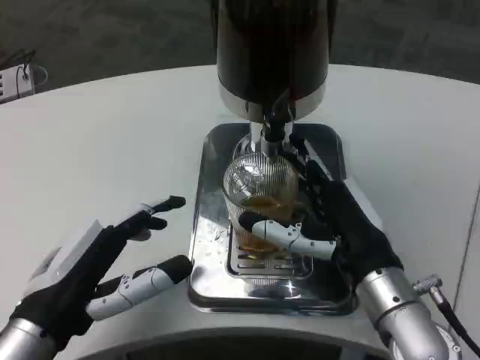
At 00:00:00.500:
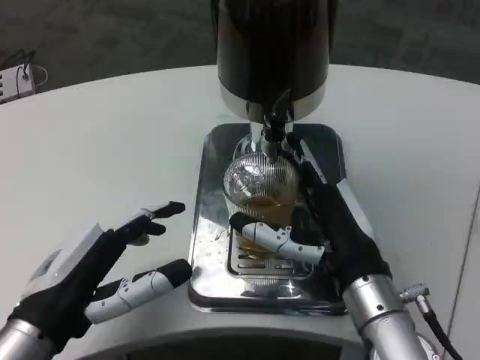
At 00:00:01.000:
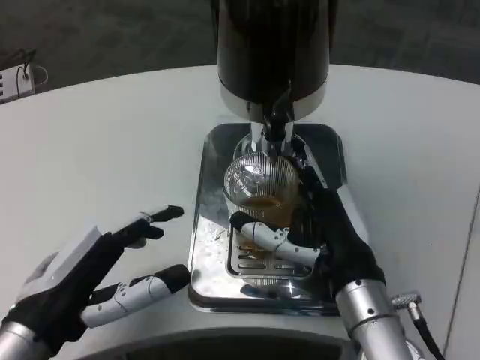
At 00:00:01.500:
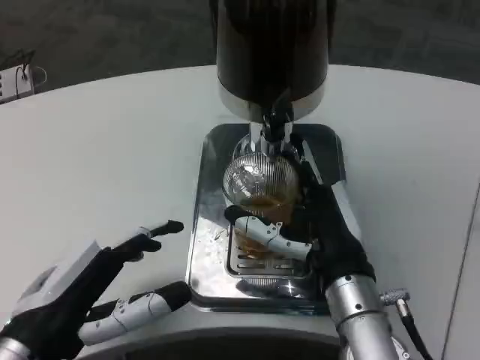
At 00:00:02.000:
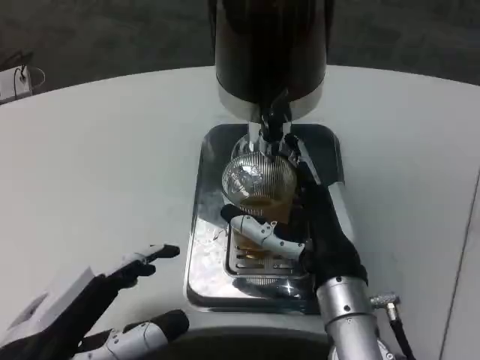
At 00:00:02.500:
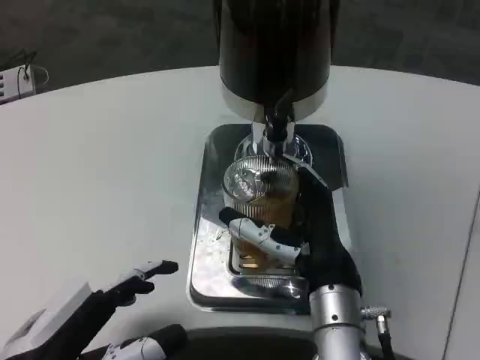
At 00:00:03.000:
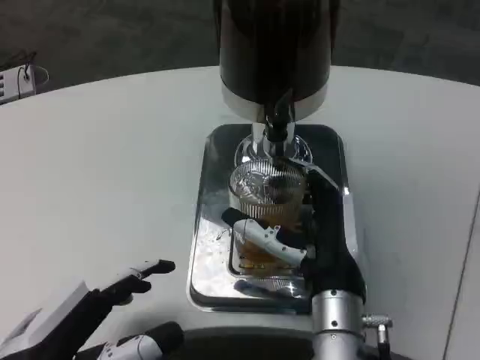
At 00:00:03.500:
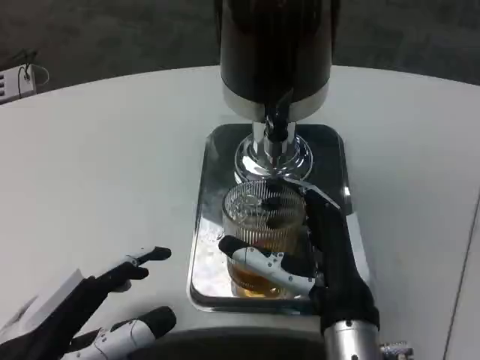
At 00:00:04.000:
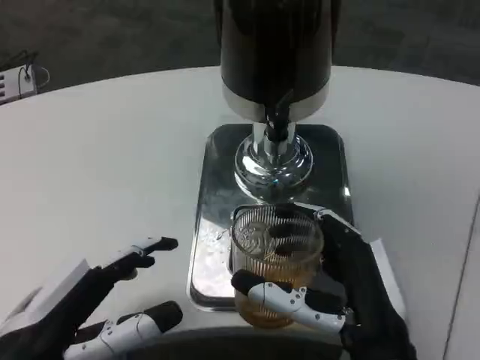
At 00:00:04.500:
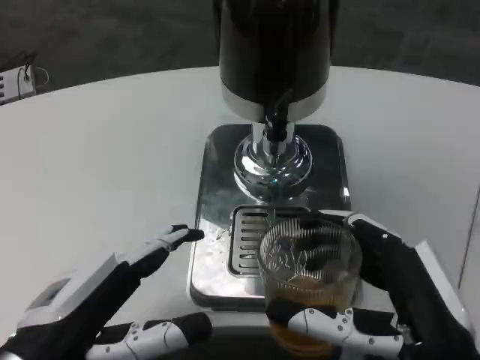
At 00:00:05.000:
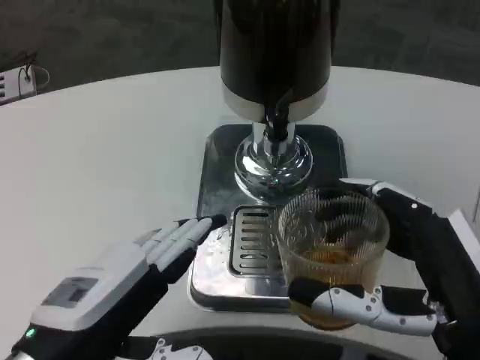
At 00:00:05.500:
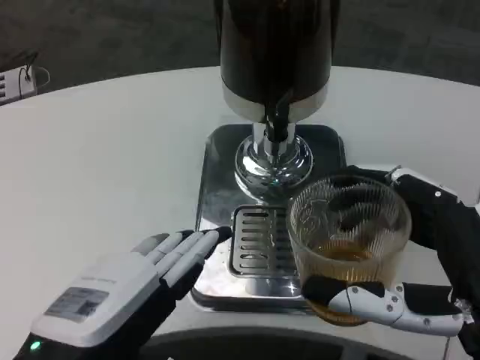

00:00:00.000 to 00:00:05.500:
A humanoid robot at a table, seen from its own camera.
Task of the whole recording: Grasp the cup under the faucet to collect the drink, then remove the cup.
00:00:00.000 to 00:00:02.000: The left hand heads backward, covering some 5 cm; the right hand moves approximately 5 cm.
00:00:02.000 to 00:00:03.500: The hands stay close to where they were, moving slightly.
00:00:03.500 to 00:00:05.500: The left hand moves approximately 5 cm, while the right hand goes some 15 cm to the right, backward and upward.

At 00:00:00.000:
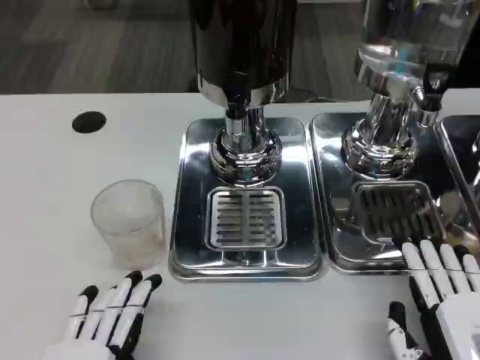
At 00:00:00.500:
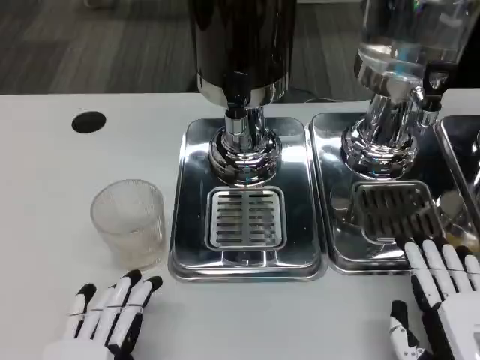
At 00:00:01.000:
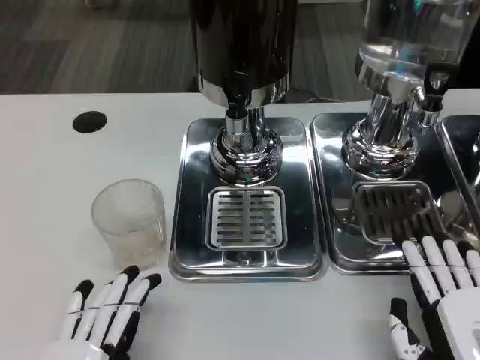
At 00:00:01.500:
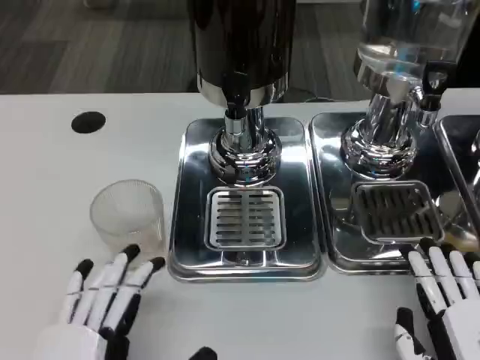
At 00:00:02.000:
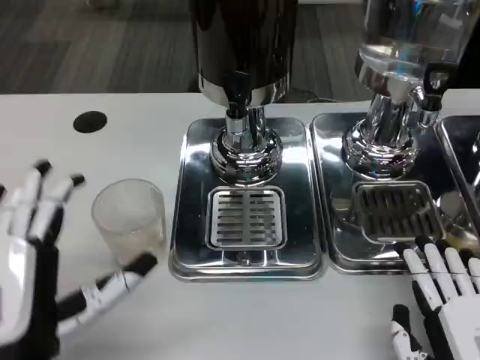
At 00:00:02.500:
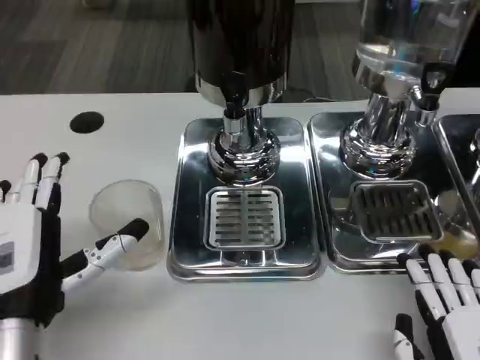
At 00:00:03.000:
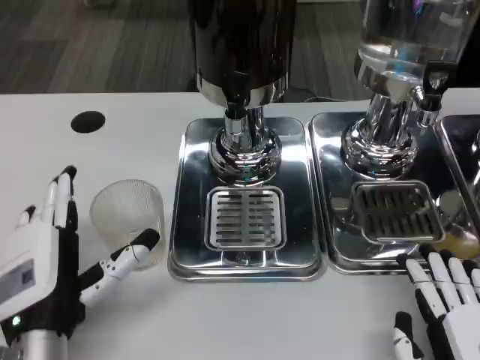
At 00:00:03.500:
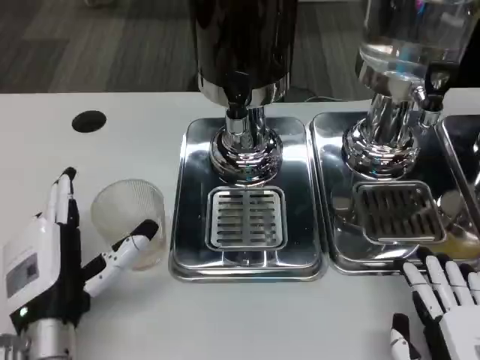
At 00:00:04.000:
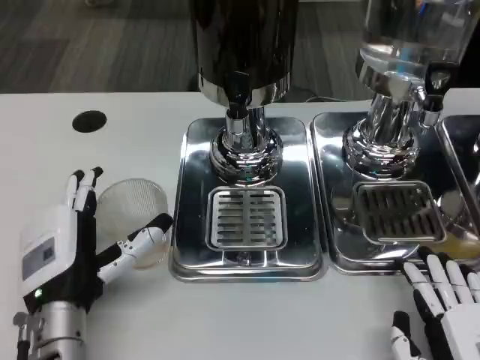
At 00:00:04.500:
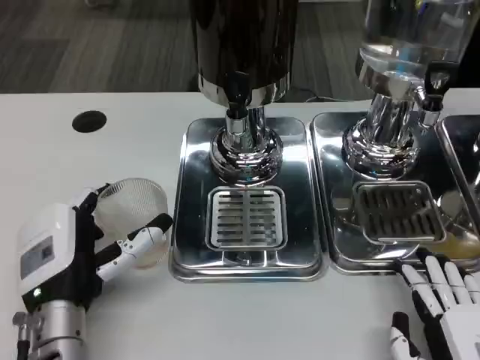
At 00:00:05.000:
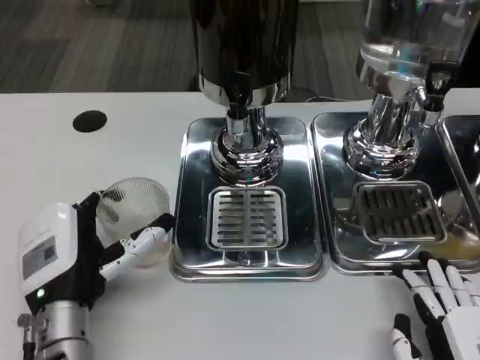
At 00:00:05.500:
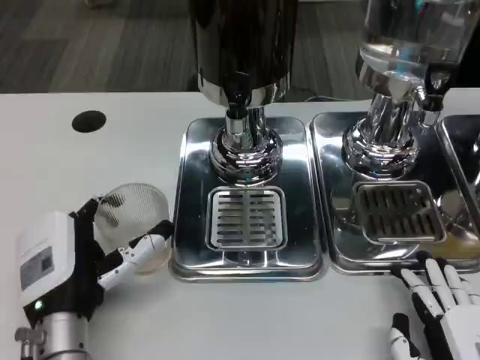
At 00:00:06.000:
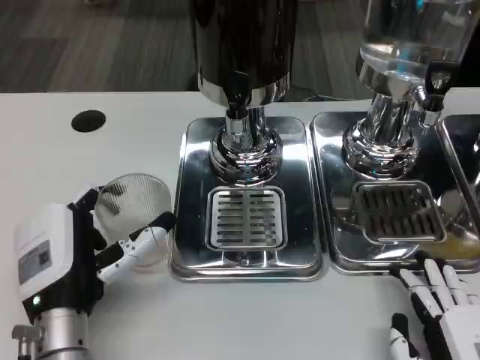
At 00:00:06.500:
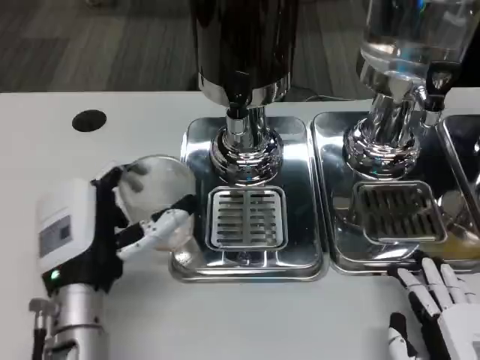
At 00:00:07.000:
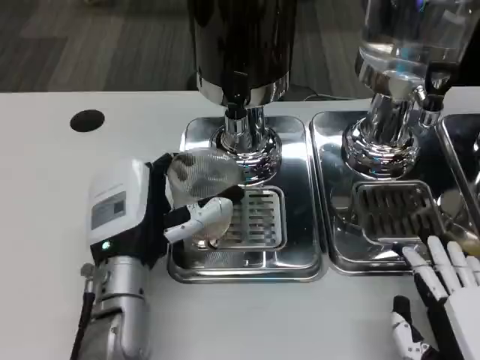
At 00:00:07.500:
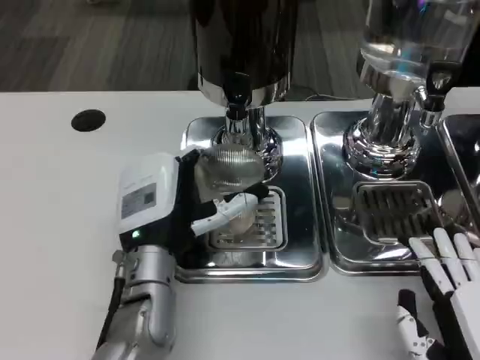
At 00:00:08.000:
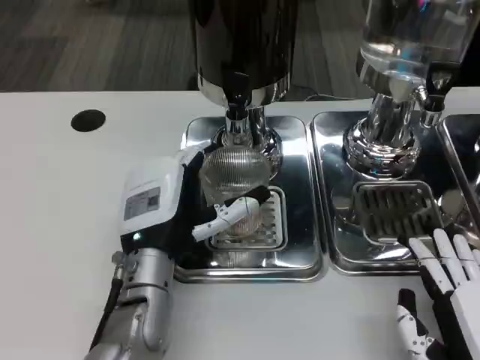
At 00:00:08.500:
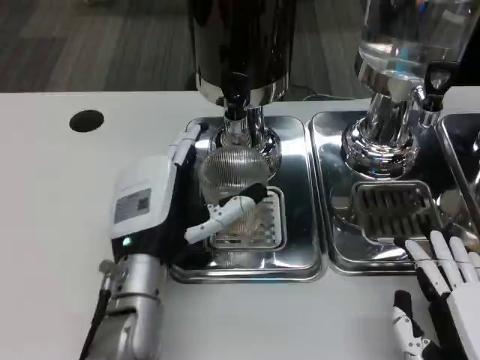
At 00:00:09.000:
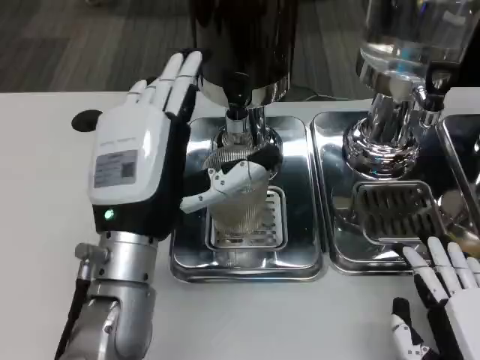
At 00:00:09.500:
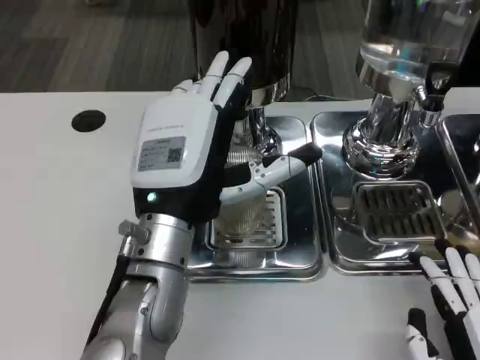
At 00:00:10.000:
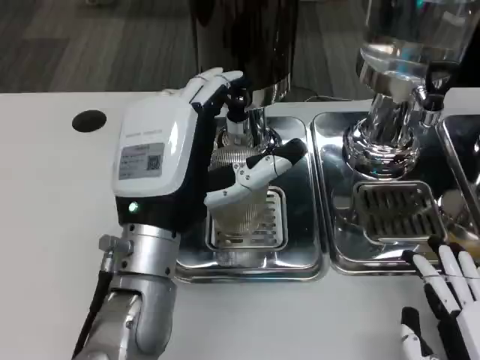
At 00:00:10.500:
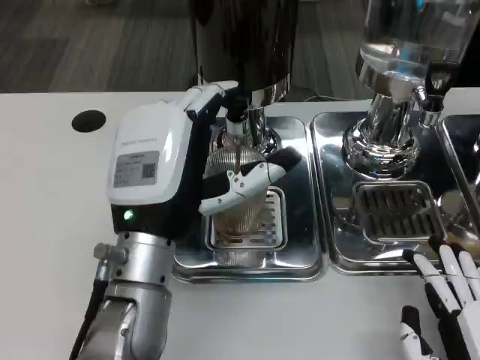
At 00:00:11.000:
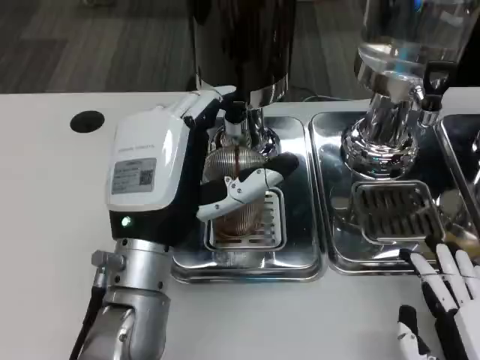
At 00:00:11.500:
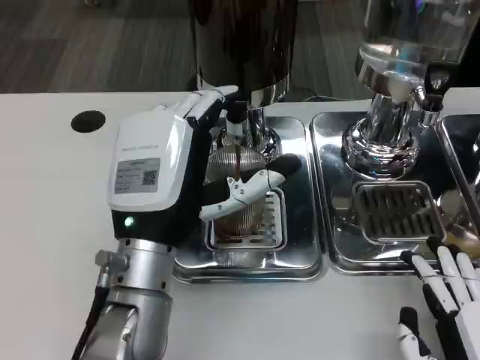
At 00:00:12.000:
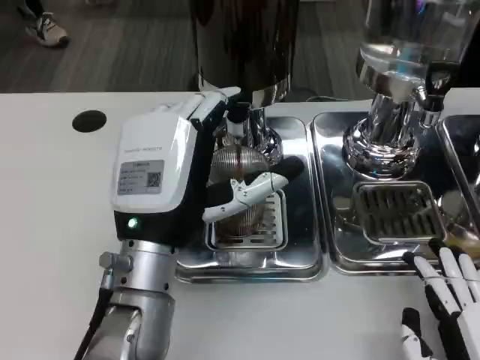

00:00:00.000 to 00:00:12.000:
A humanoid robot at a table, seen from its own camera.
Task of the whole recording: Grasp the cup under the faucet to collect the drink, then remove the cup.
00:00:00.000 to 00:00:02.000: The left hand is displaced forward and upward by some 10 cm.
00:00:02.000 to 00:00:04.000: The left hand is displaced forward by roughly 10 cm.
00:00:04.000 to 00:00:06.000: The hands make only small movements.
00:00:06.000 to 00:00:08.000: The left hand is displaced to the right and forward by some 10 cm.
00:00:08.000 to 00:00:10.000: The left hand travels upward by approximately 5 cm.
00:00:10.000 to 00:00:12.000: There are only small adjustments of the hands.

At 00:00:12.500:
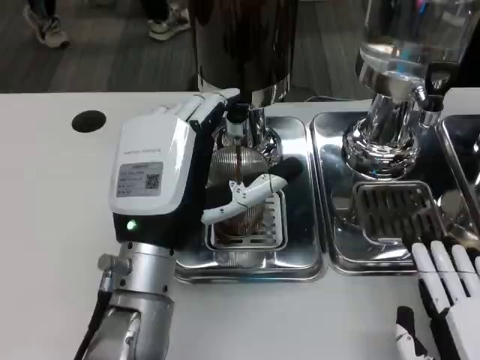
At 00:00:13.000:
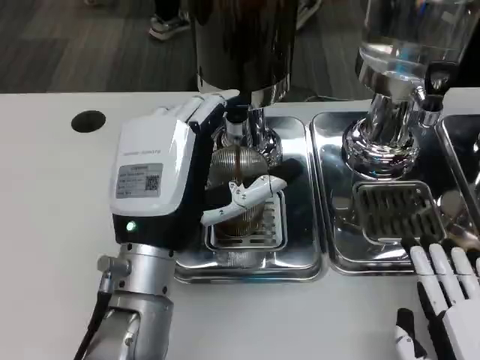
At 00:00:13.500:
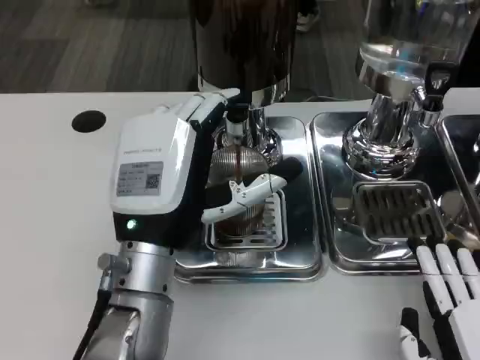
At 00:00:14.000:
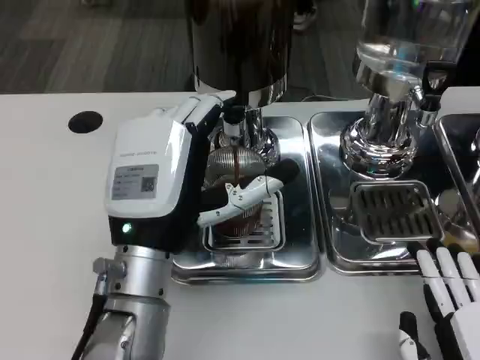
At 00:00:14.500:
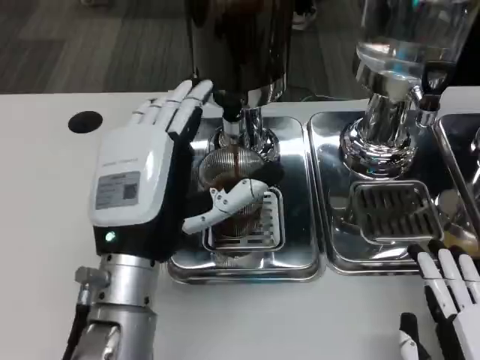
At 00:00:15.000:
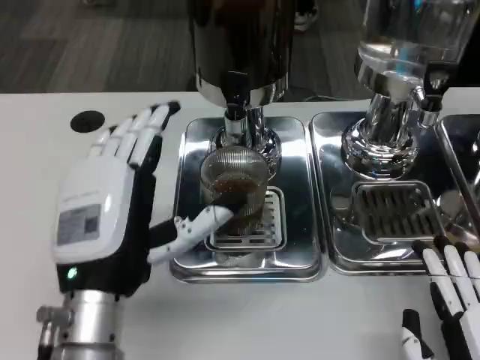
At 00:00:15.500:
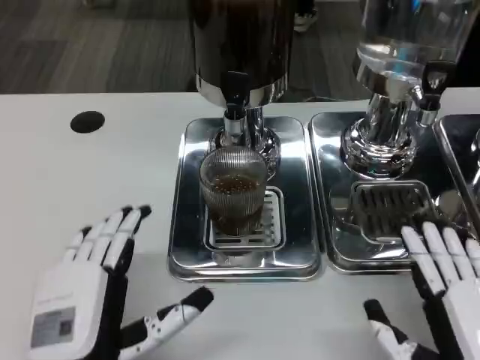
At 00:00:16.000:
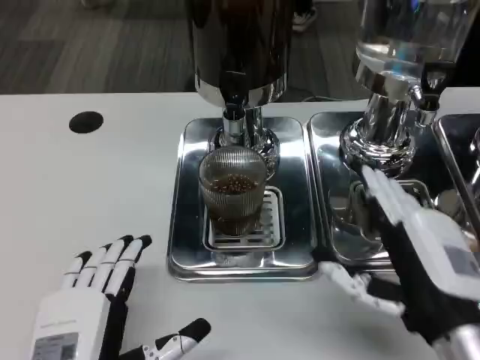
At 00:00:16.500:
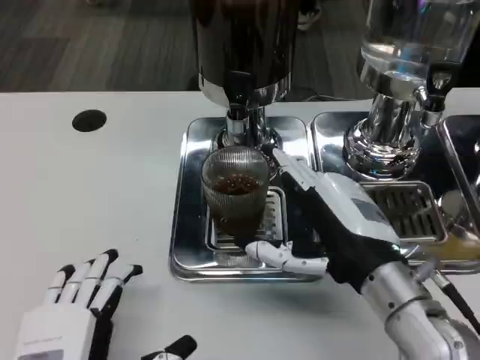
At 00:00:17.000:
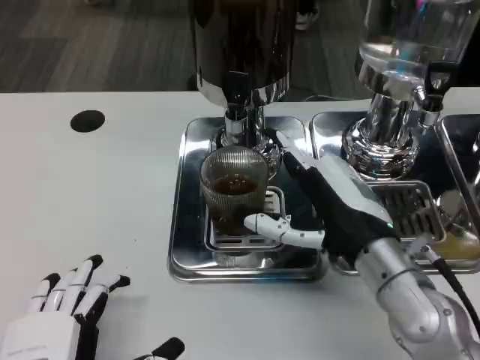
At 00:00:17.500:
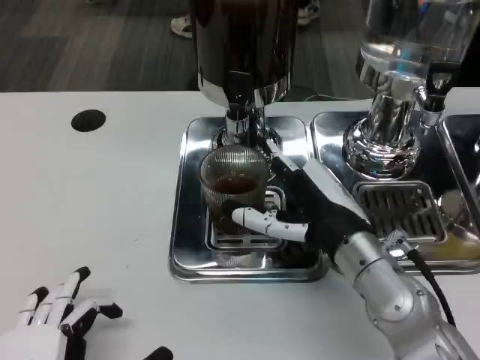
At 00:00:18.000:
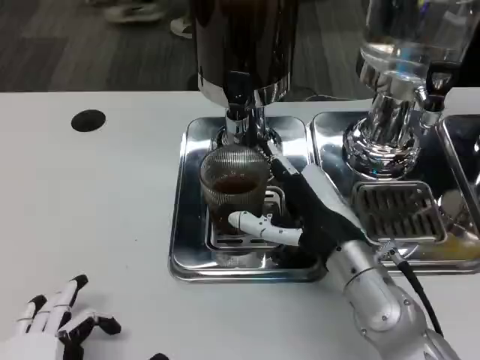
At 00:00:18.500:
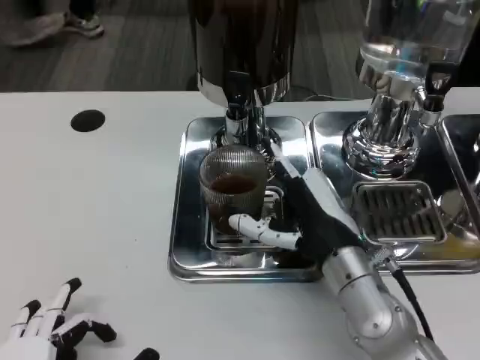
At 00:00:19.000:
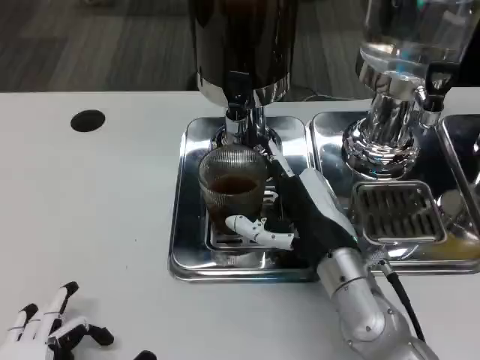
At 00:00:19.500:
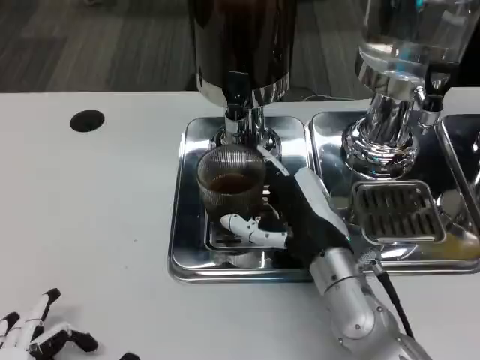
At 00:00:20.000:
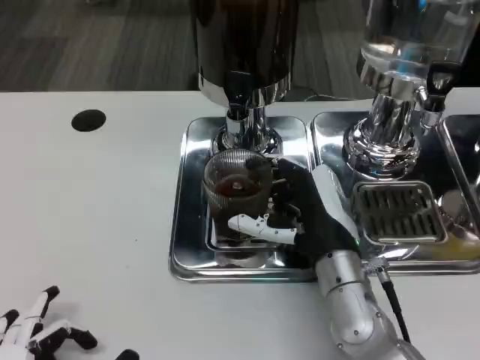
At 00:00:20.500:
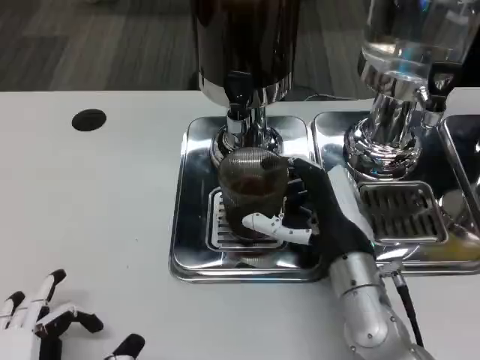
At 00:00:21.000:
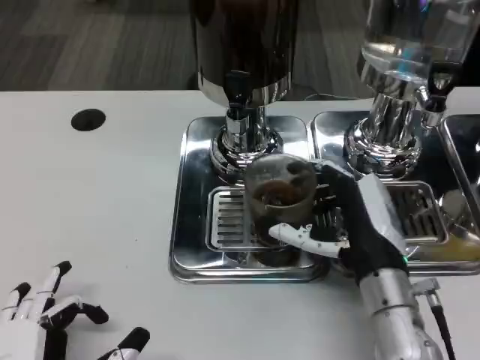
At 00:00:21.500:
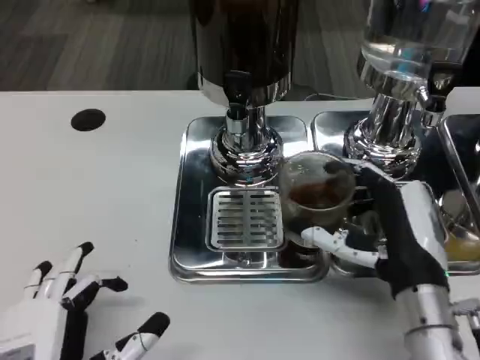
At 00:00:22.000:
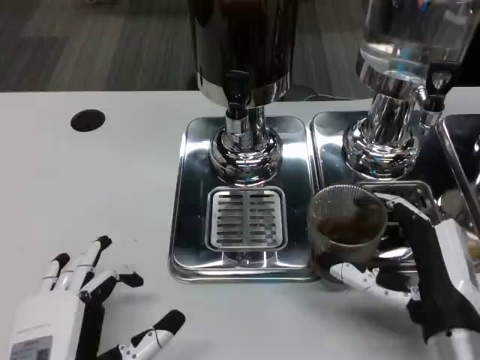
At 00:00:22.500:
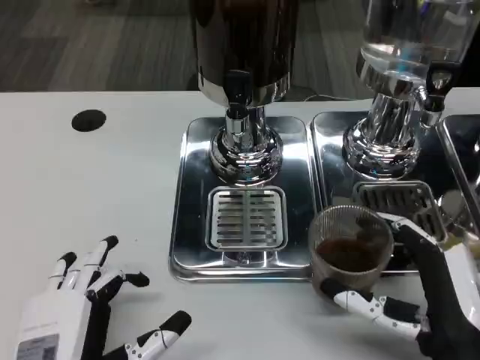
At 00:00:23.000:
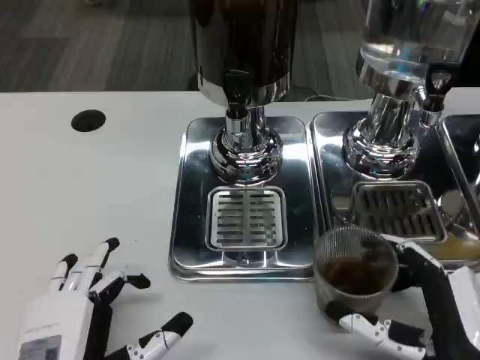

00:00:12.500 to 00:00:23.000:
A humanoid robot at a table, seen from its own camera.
Task of the whole recording: Grasp the cup under the faucet to collect the drink, then remove the cup.
00:00:14.500 to 00:00:16.500: The right hand travels forward, to the left and upward by some 15 cm, while the left hand heads backward, downward and to the left, covering approximately 15 cm.
00:00:16.500 to 00:00:19.000: The right hand ends up roughly 5 cm from where it was.
00:00:21.000 to 00:00:23.000: The right hand shifts about 10 cm backward and to the right.
